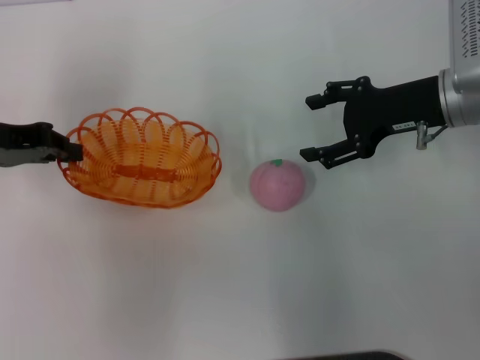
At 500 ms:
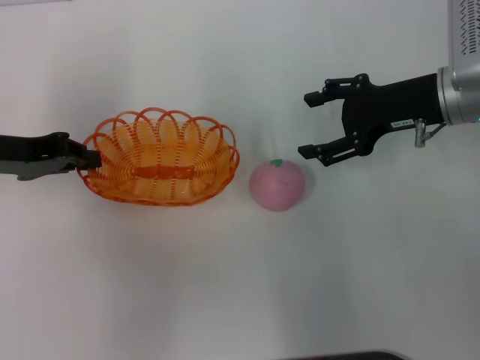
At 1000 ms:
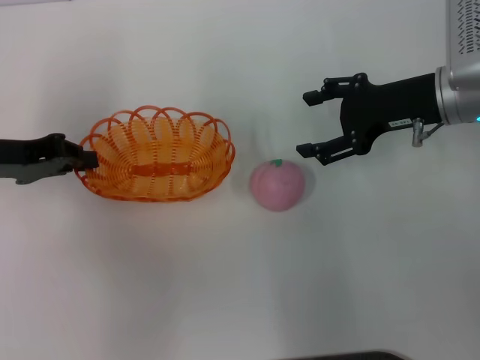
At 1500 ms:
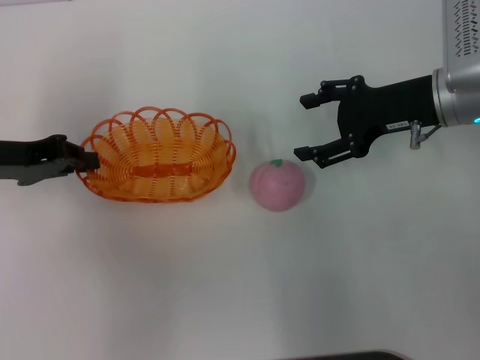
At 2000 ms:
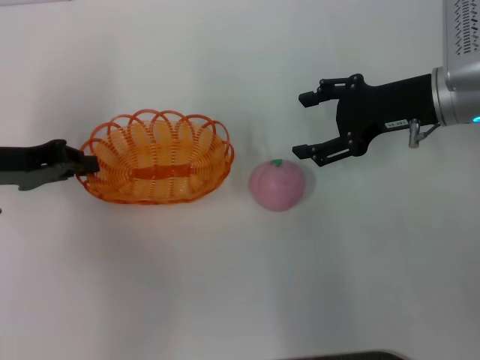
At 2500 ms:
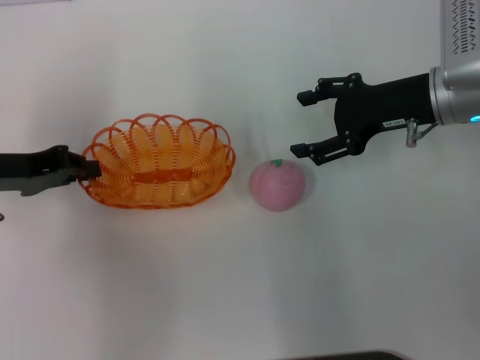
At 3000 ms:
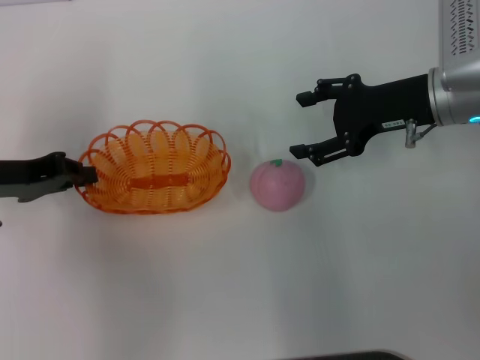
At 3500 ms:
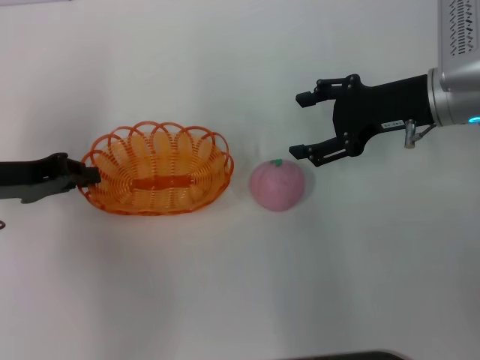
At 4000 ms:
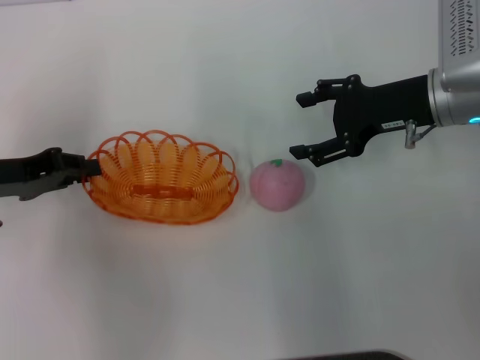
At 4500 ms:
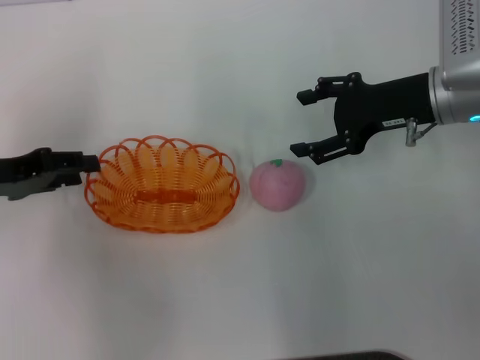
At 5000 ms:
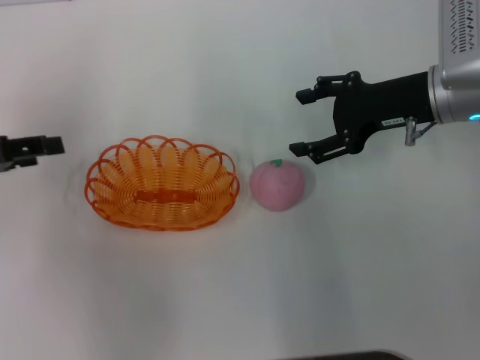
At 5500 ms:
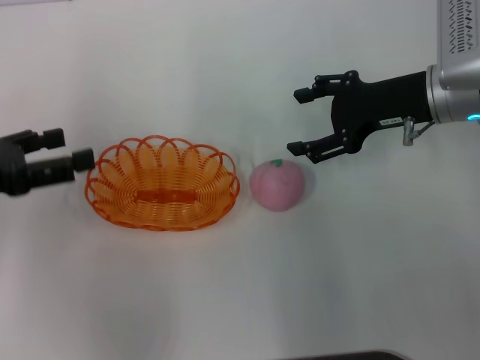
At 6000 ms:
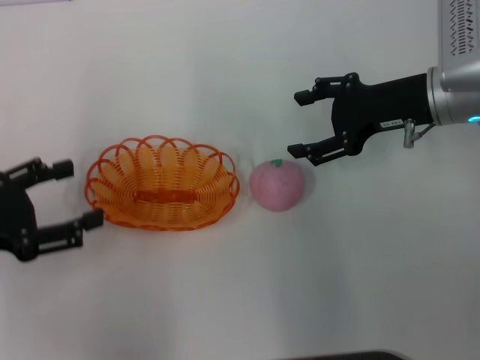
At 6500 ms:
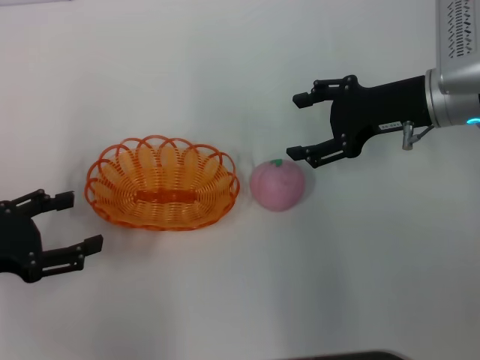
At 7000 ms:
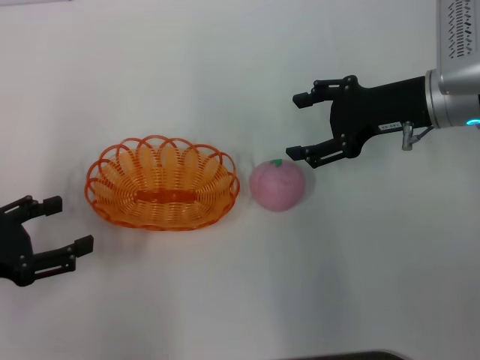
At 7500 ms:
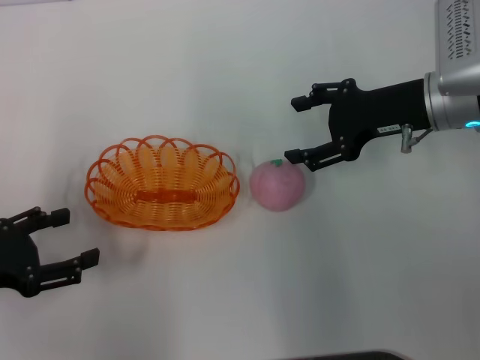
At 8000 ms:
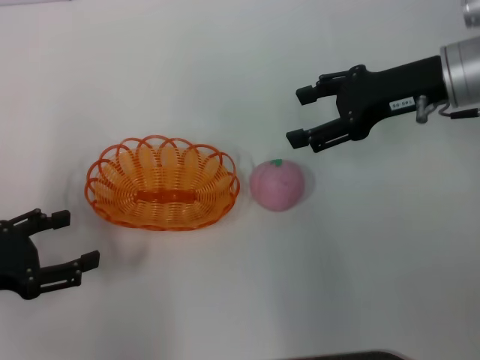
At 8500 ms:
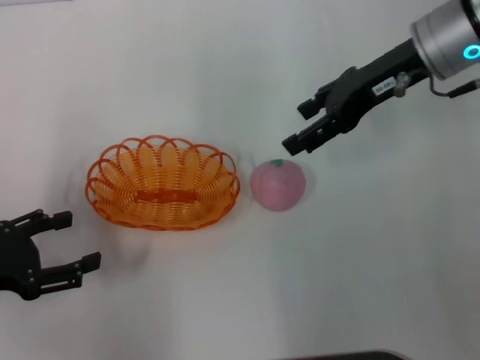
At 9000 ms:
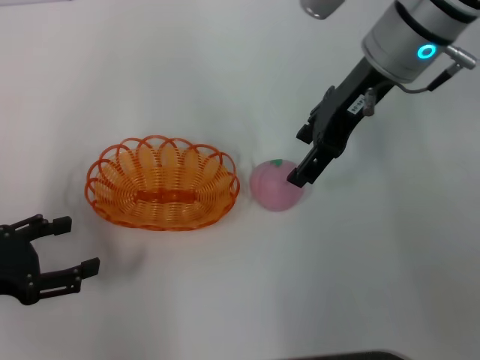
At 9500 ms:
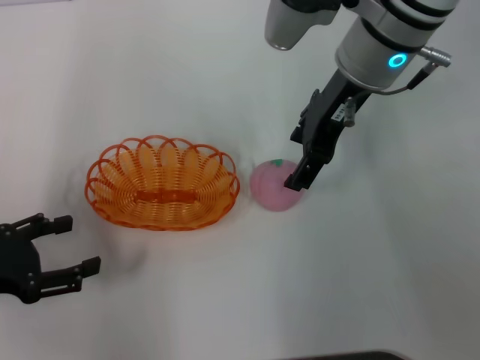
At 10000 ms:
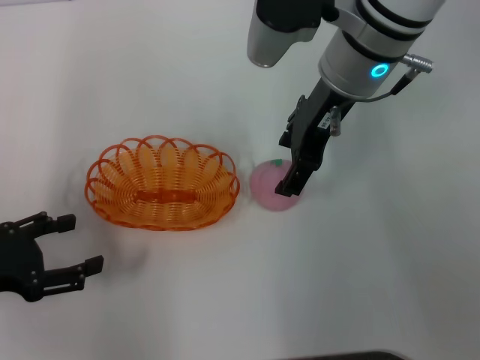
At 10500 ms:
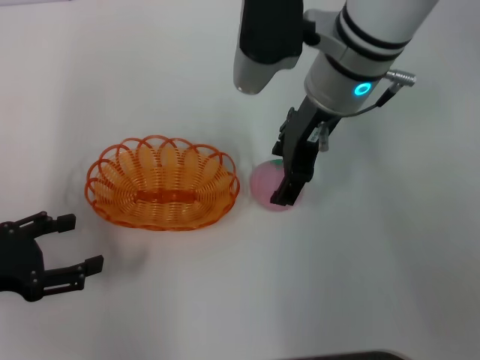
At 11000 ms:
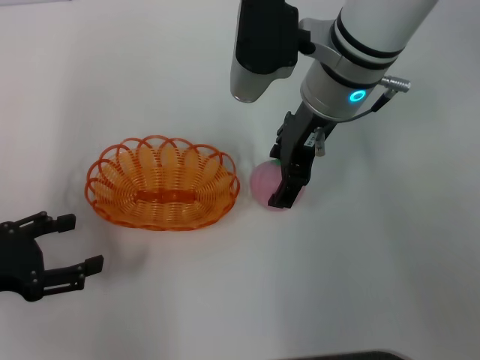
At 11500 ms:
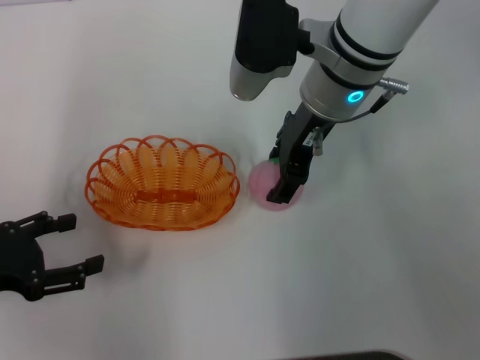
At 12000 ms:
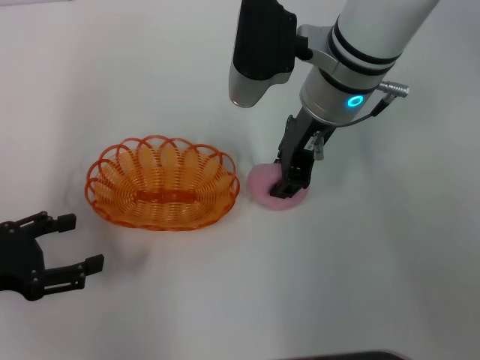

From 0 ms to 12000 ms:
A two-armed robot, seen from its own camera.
Step, from 500 ms to 4500 ms: Place the basket in the center of view with the left gripper.
From 0 ms to 4000 ms: The grippers move only a little.
From 4000 ms to 6000 ms: The left gripper travels backward by about 10 cm, and opens.
From 6000 ms to 8000 ms: The grippers stay close to where they were, moving slightly.
From 8000 ms to 10000 ms: The right gripper moves to the left, approximately 15 cm.
From 10000 ms to 12000 ms: The right gripper closes up.

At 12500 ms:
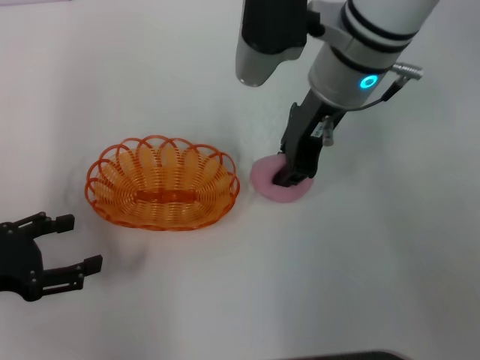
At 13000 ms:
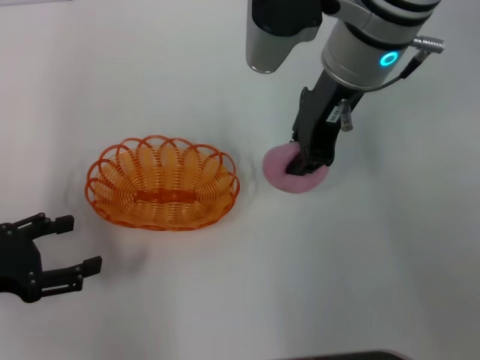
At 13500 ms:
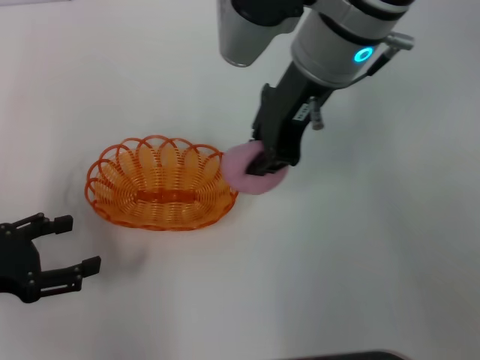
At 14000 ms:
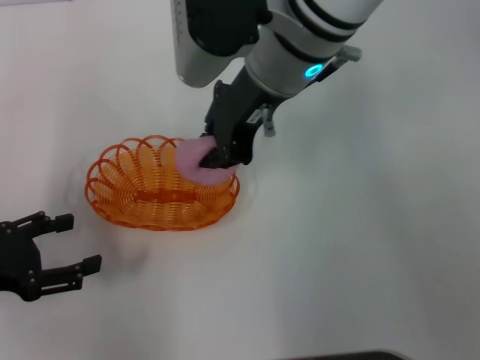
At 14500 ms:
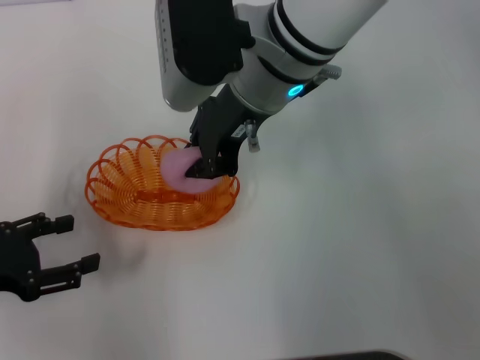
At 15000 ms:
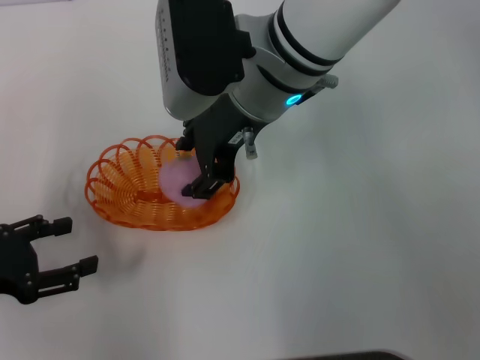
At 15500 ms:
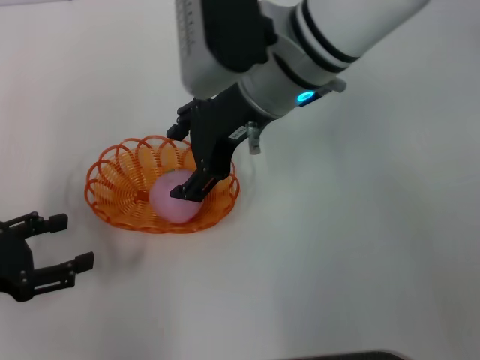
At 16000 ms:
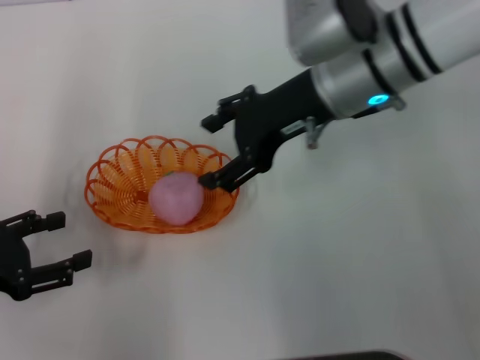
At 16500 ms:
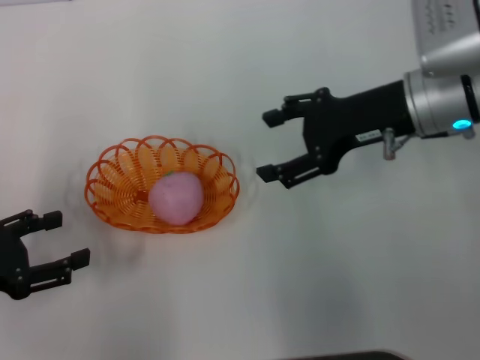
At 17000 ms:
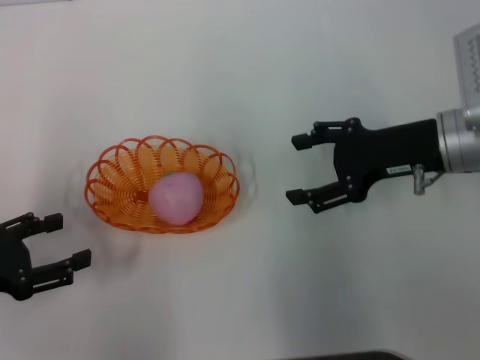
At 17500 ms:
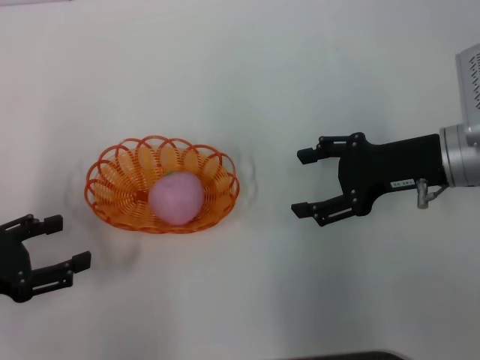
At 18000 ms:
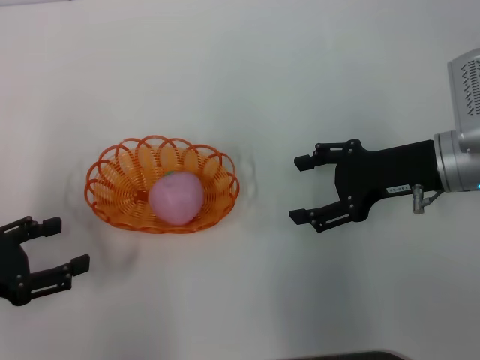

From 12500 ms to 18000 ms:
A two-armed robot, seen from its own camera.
Step, from 13000 ms to 15500 ms: Place the peach into the basket with the right gripper.
From 12500 ms to 14500 ms: The right gripper goes approximately 5 cm to the left.
From 14500 ms to 16000 ms: The right gripper shifts roughly 10 cm to the right, and opens.
From 16000 ms to 18000 ms: The right gripper is displaced to the right and downward by approximately 15 cm.
